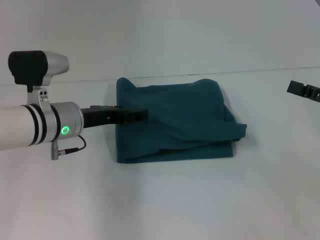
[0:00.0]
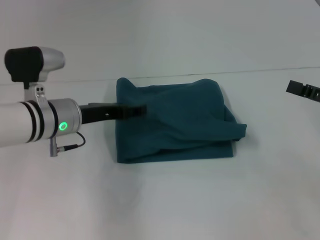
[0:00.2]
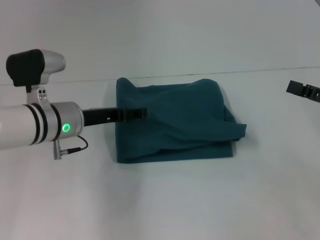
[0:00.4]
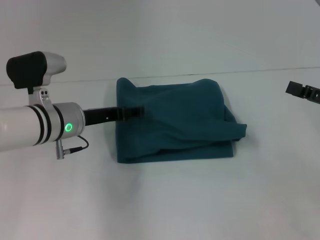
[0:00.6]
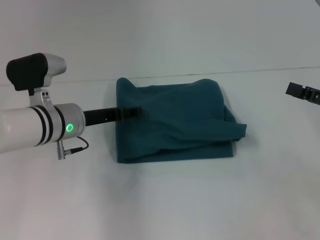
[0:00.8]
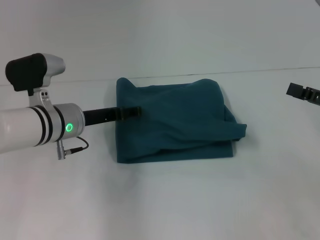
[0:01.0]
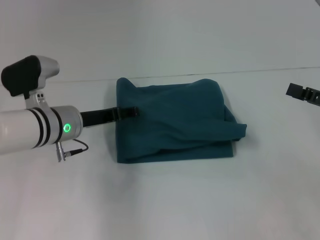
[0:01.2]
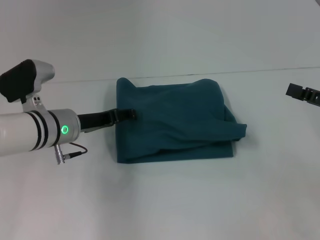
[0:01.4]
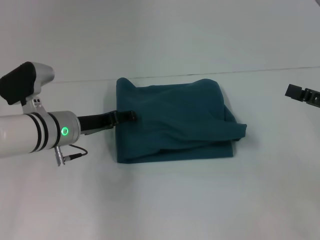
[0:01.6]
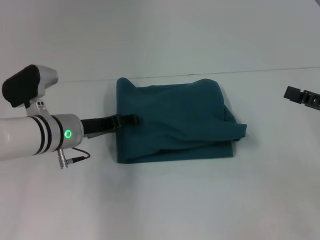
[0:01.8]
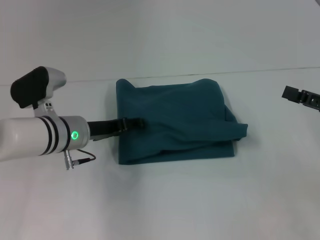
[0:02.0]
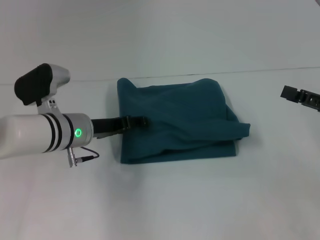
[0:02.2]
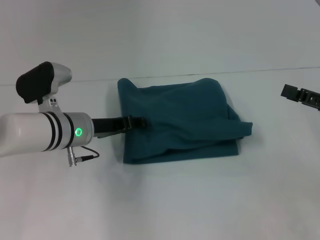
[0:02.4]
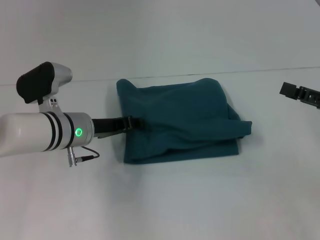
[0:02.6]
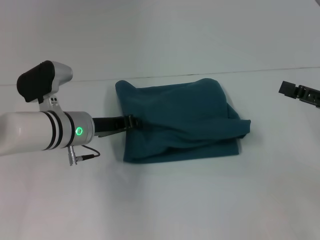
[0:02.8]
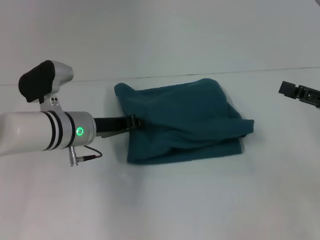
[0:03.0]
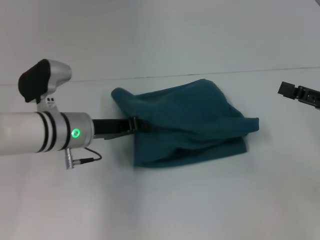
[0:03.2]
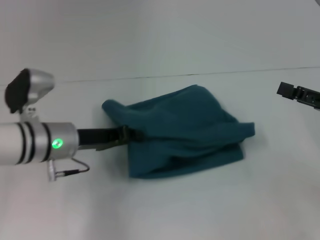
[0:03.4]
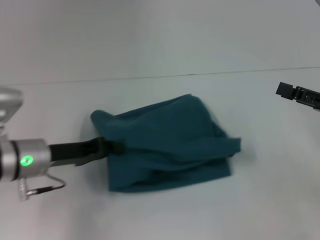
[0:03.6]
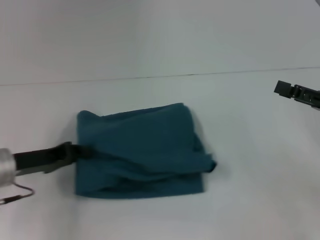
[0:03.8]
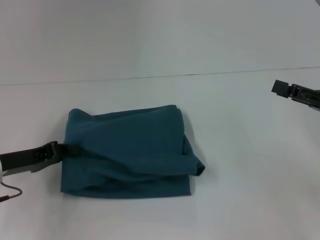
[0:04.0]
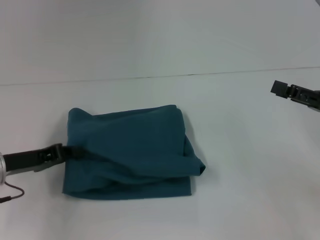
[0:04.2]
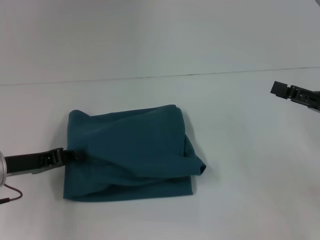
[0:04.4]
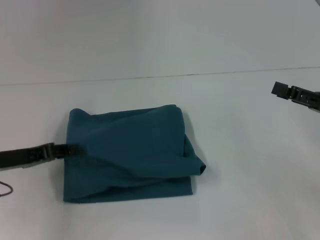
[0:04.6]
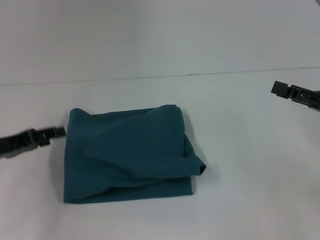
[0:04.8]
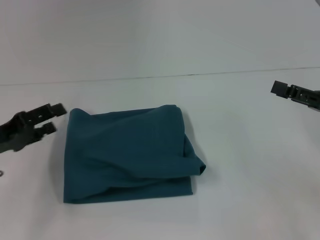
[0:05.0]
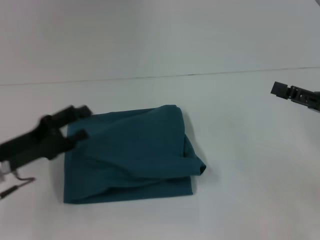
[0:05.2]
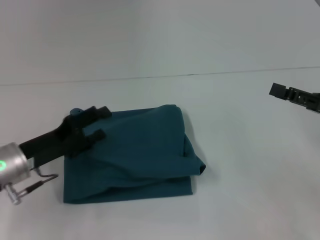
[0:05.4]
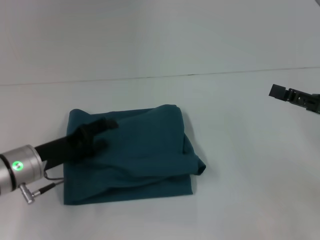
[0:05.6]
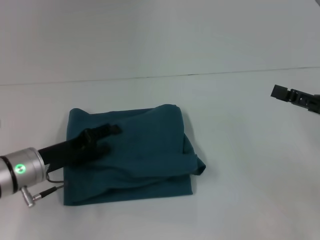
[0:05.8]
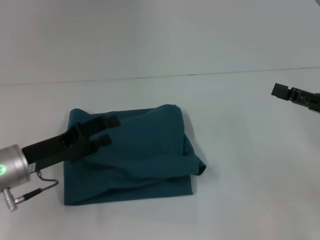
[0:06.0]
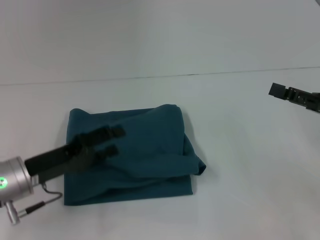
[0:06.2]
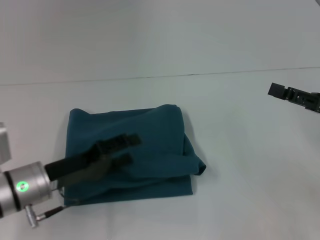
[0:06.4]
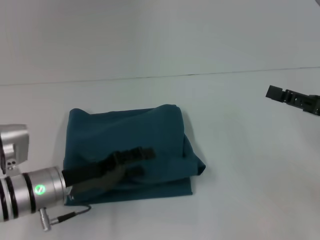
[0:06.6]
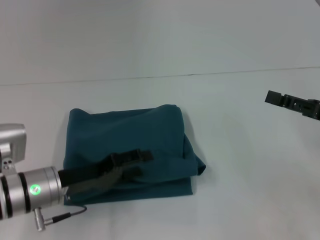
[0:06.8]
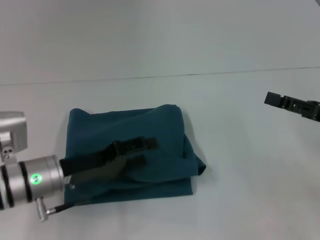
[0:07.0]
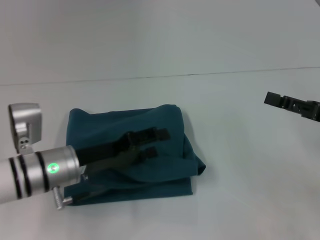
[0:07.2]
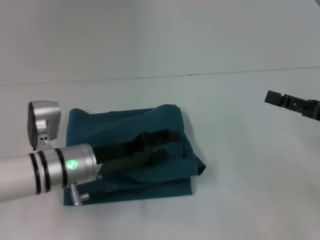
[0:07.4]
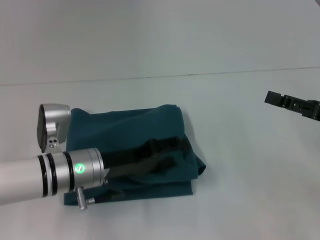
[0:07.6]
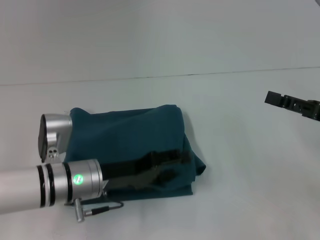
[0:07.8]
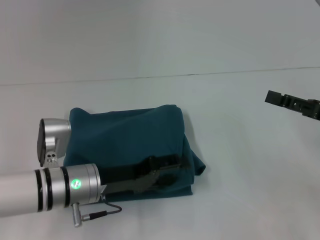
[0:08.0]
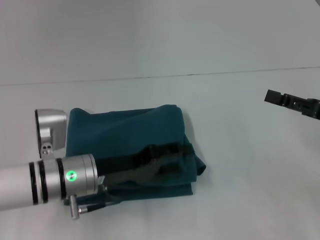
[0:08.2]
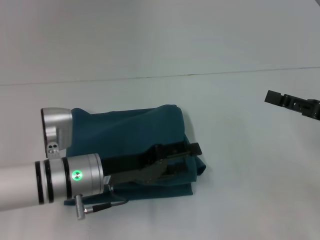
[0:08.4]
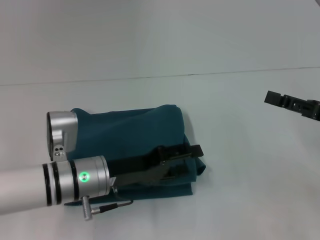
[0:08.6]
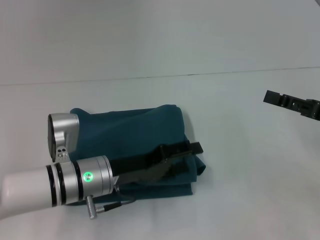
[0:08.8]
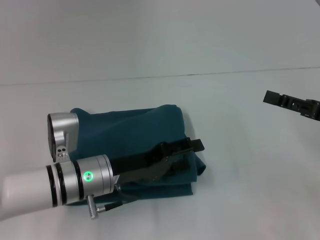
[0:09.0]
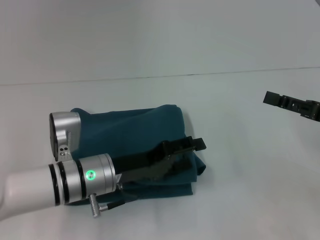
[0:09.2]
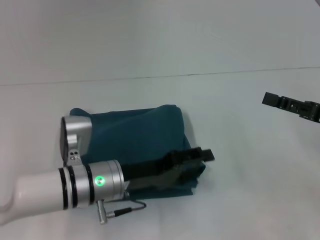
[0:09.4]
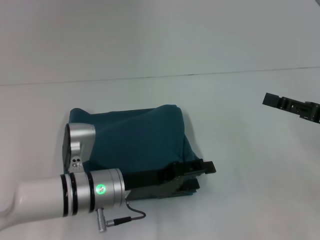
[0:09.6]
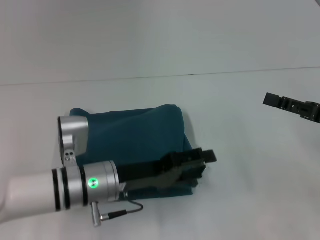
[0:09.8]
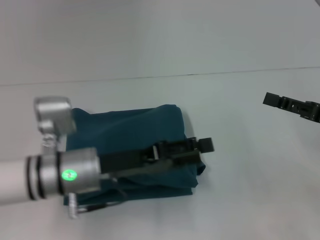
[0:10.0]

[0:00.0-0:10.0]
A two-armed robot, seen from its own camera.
0:01.4 to 0:02.8: The left gripper closes.
0:02.8 to 0:04.2: The left gripper shifts some 15 cm to the left and backward.
0:04.2 to 0:05.8: The left gripper moves to the right, about 5 cm, and opens its fingers.
0:05.8 to 0:07.2: The left gripper ends up roughly 5 cm from where it was.
0:07.2 to 0:08.6: The grippers make only small movements.
0:08.6 to 0:10.0: The grippers move only a little.

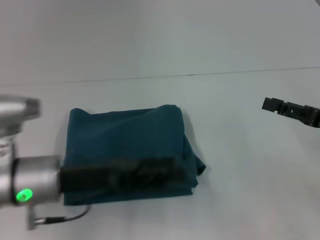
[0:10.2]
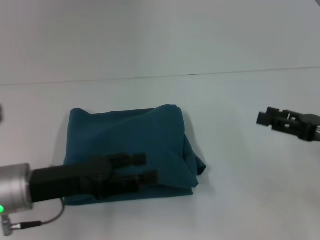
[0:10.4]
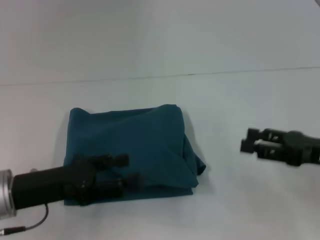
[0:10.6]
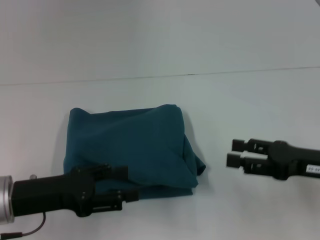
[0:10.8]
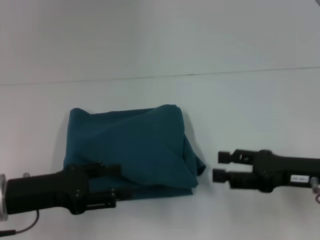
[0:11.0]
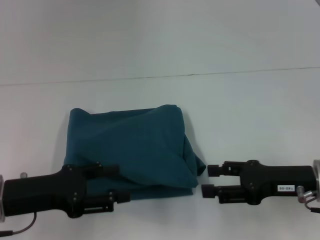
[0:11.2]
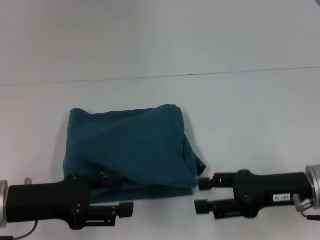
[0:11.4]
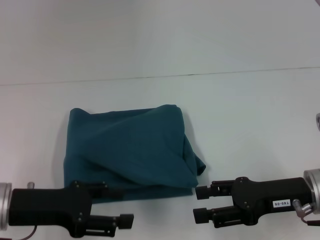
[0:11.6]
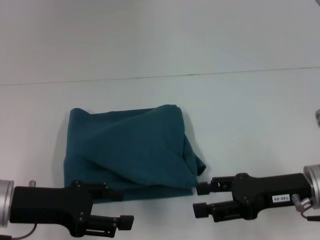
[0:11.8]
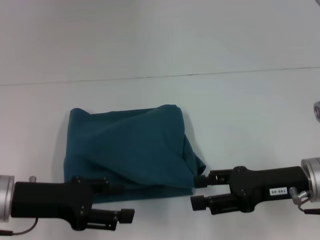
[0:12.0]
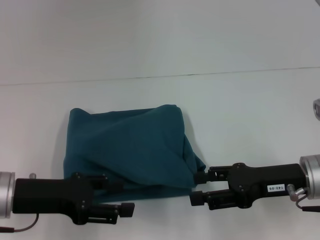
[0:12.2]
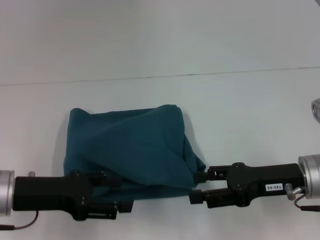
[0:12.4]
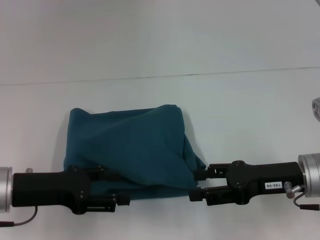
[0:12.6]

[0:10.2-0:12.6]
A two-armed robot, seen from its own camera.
0:10.2 to 0:11.4: The grippers both shift to the left by roughly 10 cm.
0:11.4 to 0:12.6: There are only small adjustments of the grippers.

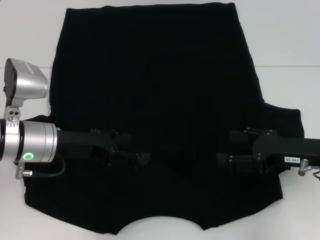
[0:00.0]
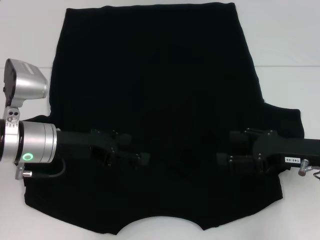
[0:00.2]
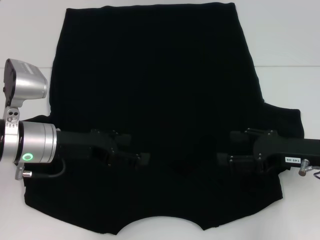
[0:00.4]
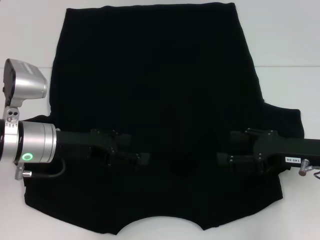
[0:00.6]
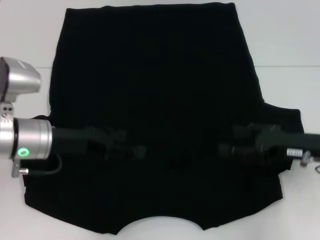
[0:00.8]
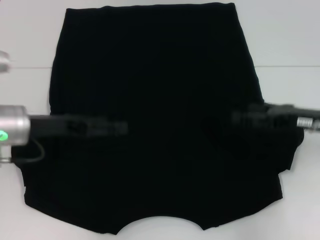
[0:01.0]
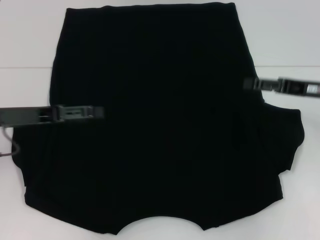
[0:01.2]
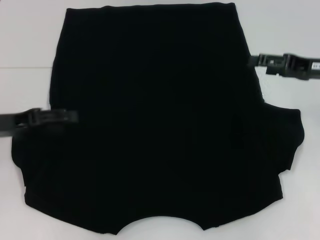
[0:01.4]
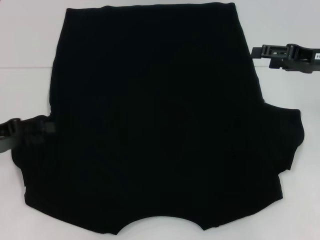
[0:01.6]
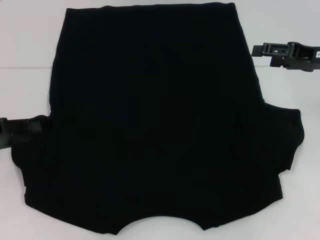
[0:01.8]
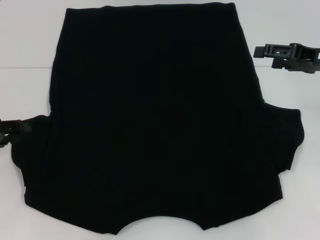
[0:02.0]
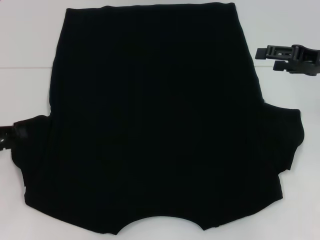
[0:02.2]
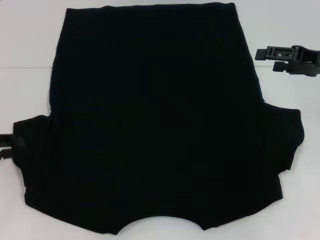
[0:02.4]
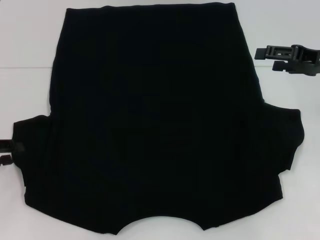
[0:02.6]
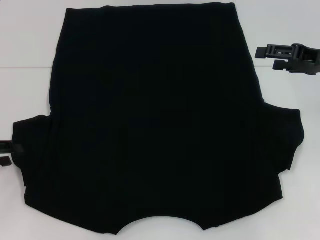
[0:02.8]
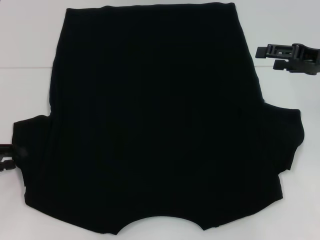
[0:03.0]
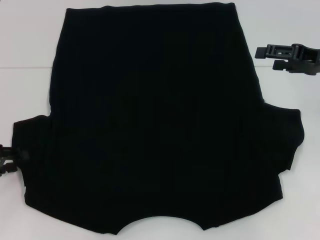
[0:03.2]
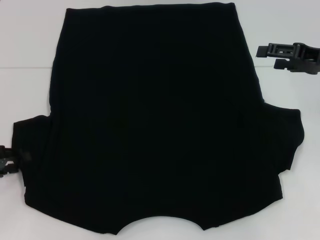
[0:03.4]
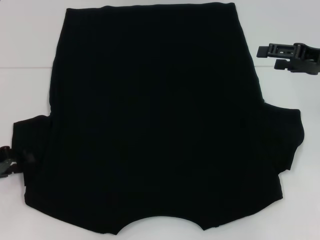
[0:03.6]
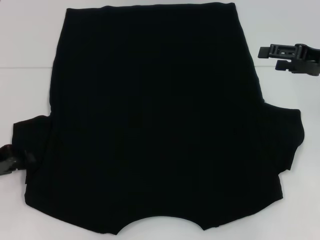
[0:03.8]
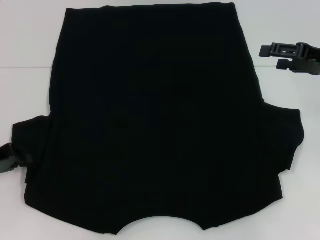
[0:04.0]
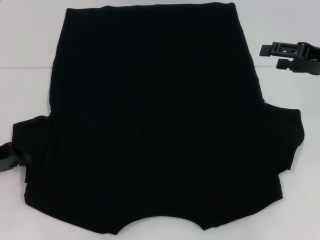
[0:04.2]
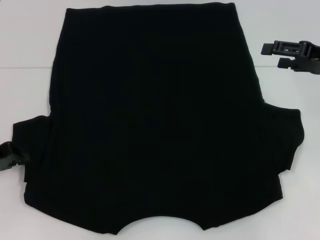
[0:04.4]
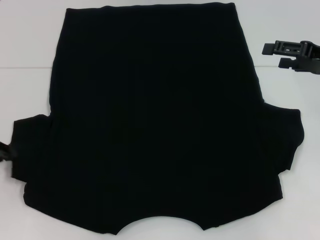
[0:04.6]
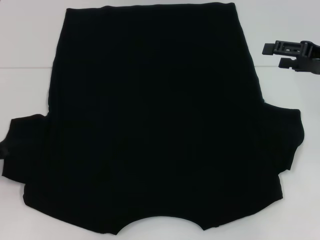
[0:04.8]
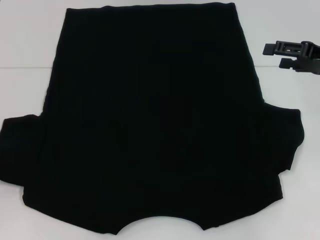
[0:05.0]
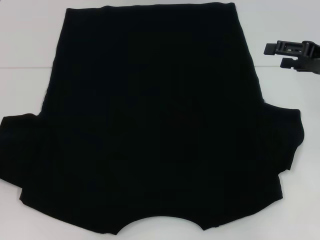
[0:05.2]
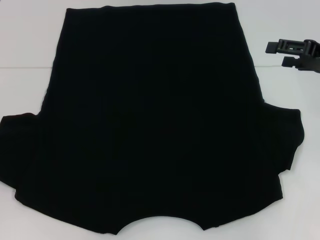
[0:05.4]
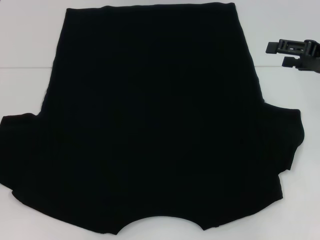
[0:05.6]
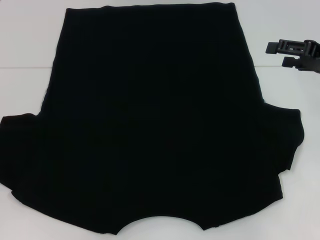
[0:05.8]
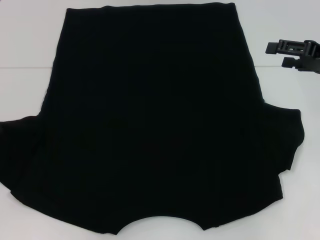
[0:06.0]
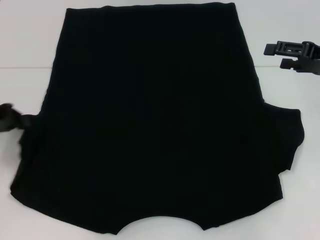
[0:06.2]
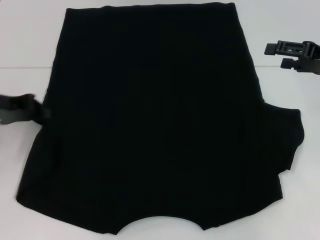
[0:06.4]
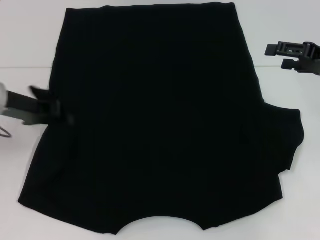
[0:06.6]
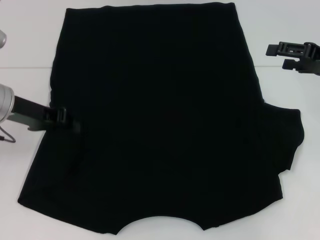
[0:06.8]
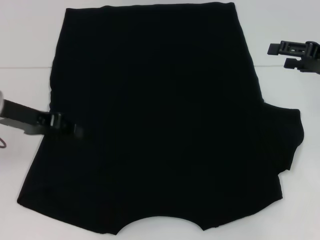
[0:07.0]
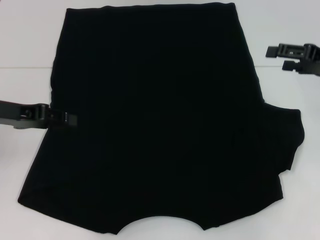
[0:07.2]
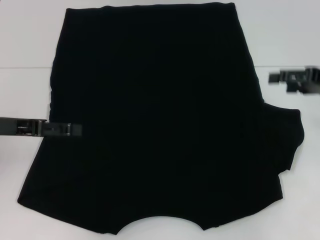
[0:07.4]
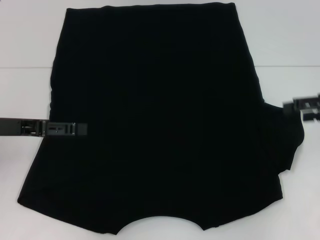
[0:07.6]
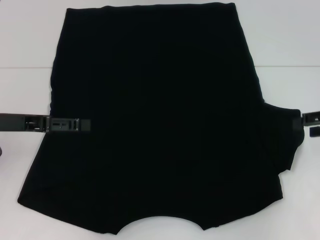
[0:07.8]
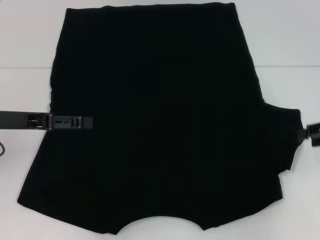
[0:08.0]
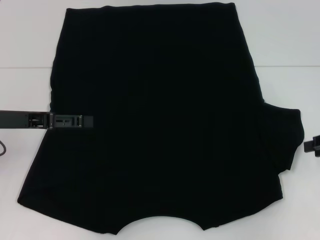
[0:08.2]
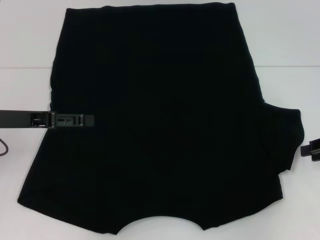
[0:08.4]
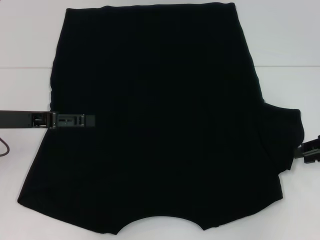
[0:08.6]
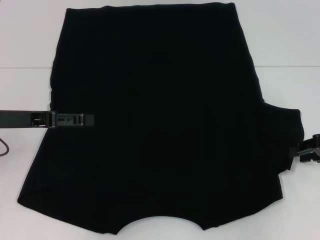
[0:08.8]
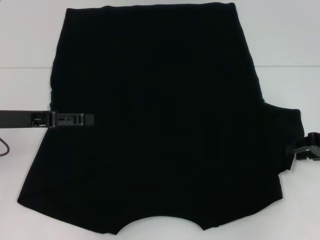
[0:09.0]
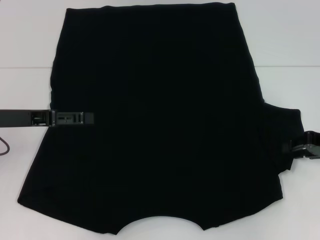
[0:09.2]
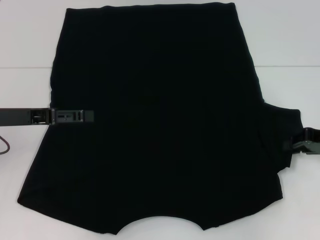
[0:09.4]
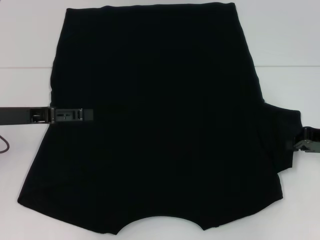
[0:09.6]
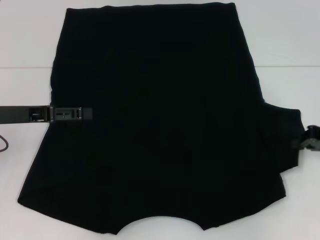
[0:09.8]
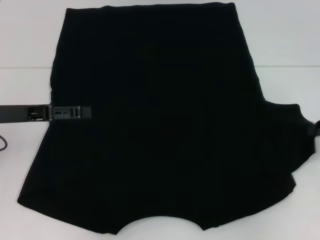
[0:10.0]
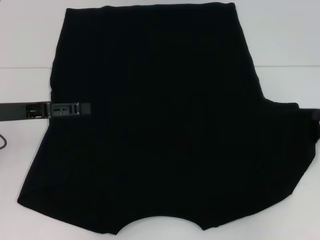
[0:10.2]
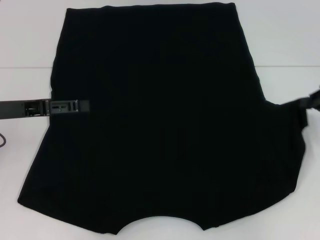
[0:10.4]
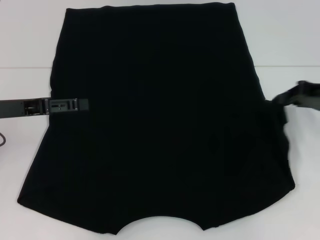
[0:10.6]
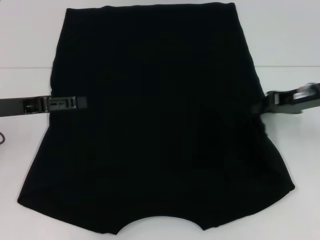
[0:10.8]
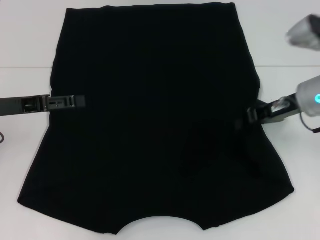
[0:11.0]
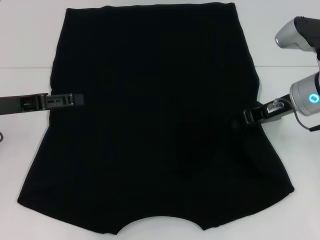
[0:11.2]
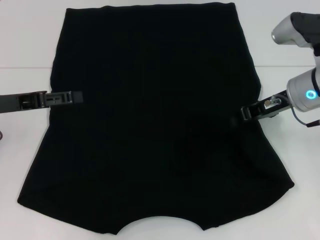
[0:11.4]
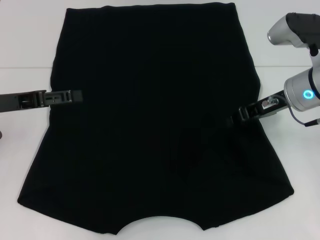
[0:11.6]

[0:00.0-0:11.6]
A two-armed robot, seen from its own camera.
Step, 0:00.0 to 0:07.2: Fold the bottom left sleeve with your left hand.
0:00.0 to 0:01.4: The right gripper heads forward and upward, covering some 10 cm. The left gripper is displaced to the left by some 10 cm.
0:01.4 to 0:02.8: The left gripper moves to the left, roughly 5 cm, and closes.
0:02.8 to 0:04.4: The left gripper closes up.
0:04.4 to 0:05.8: The left gripper ends up some 5 cm from where it was.
0:05.8 to 0:07.2: The left gripper travels to the right by about 10 cm.
0:07.2 to 0:08.8: The right gripper moves downward, approximately 5 cm, and closes up, while the left gripper opens.
0:08.8 to 0:10.2: The right gripper closes its fingers.
0:10.2 to 0:11.6: The right gripper moves to the left, some 15 cm.
